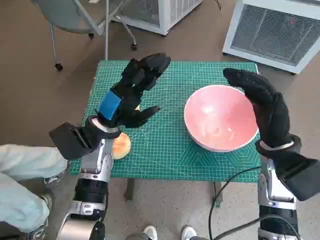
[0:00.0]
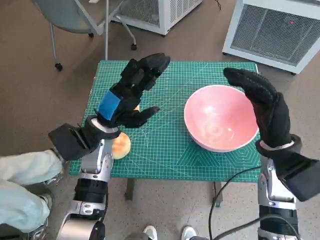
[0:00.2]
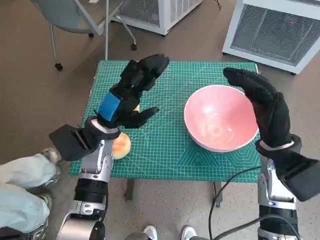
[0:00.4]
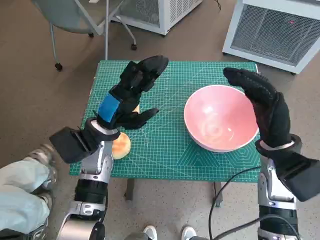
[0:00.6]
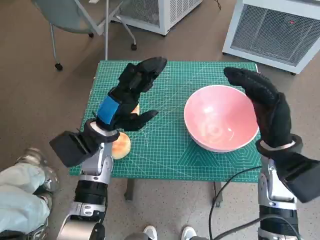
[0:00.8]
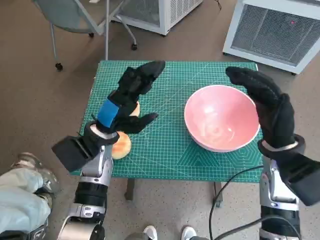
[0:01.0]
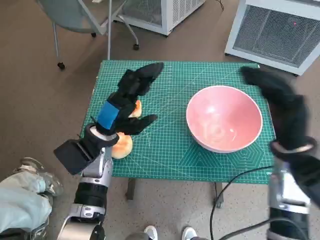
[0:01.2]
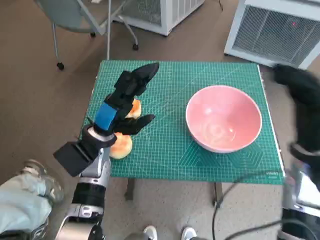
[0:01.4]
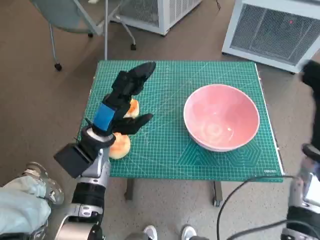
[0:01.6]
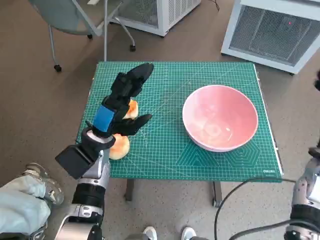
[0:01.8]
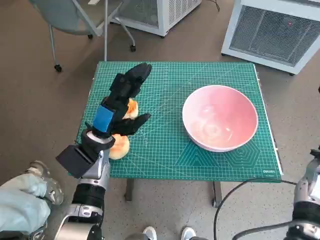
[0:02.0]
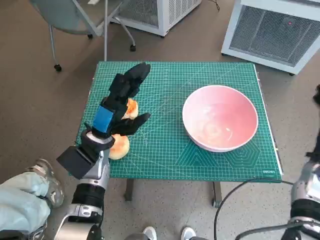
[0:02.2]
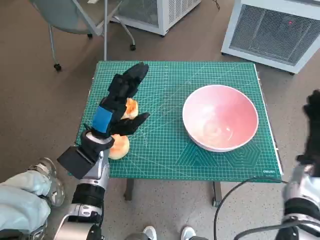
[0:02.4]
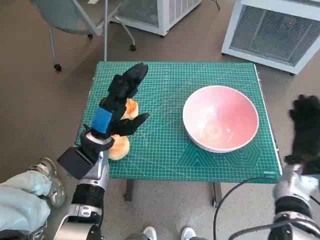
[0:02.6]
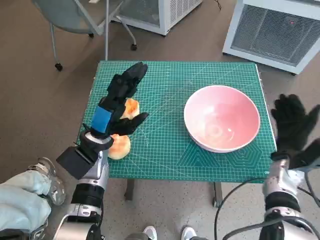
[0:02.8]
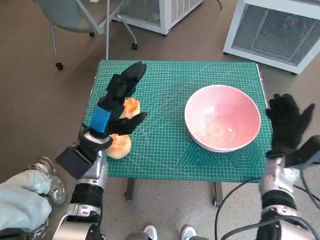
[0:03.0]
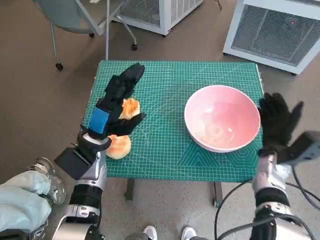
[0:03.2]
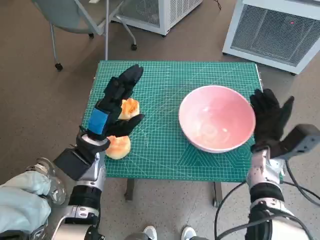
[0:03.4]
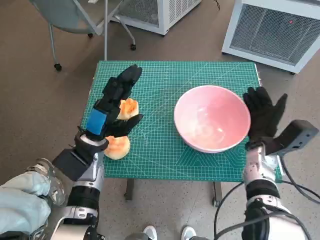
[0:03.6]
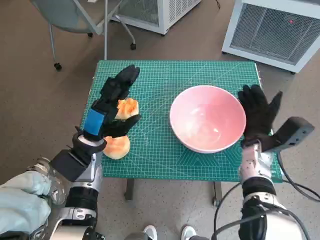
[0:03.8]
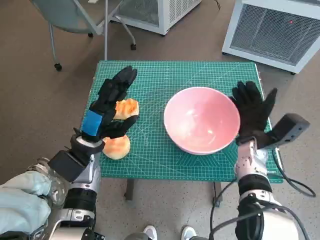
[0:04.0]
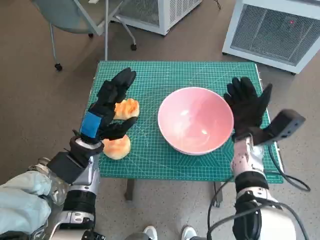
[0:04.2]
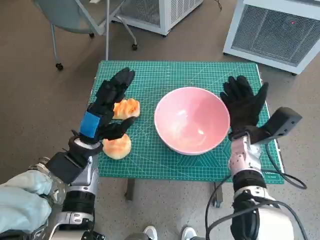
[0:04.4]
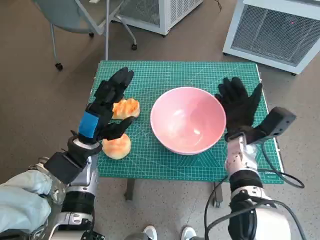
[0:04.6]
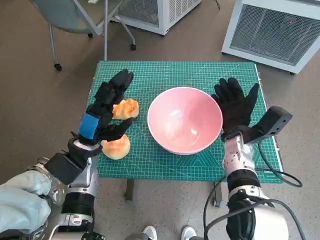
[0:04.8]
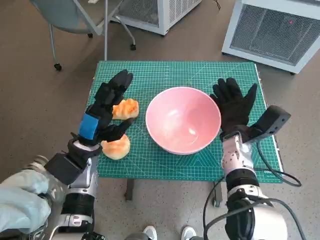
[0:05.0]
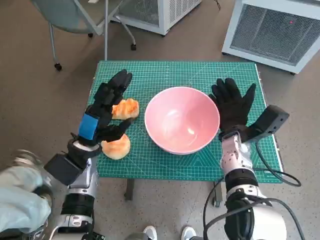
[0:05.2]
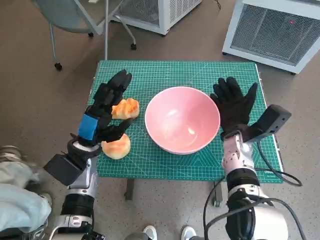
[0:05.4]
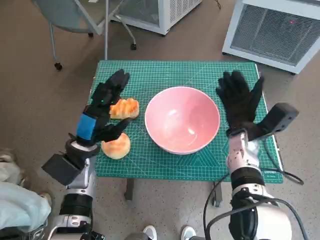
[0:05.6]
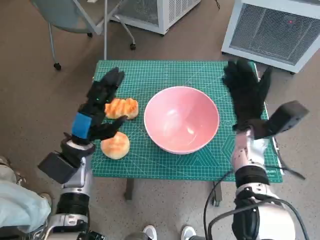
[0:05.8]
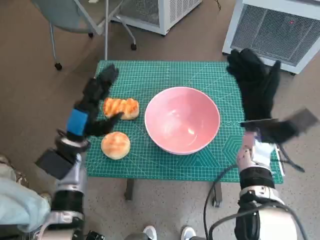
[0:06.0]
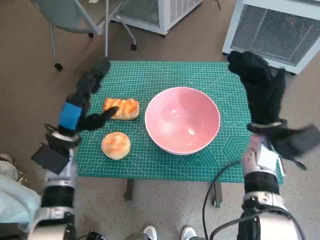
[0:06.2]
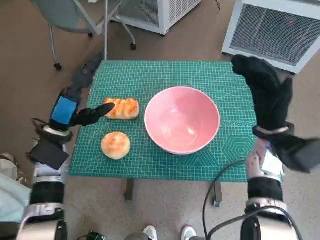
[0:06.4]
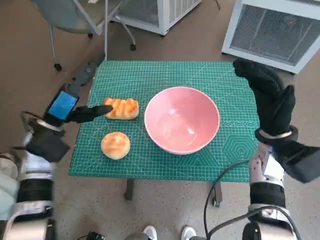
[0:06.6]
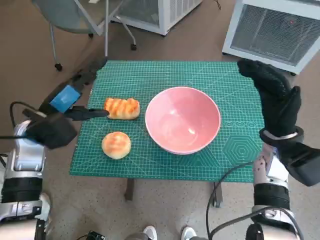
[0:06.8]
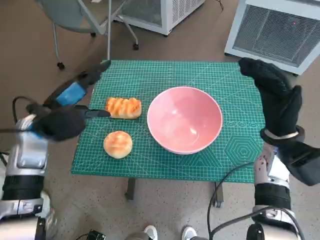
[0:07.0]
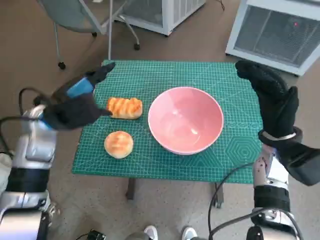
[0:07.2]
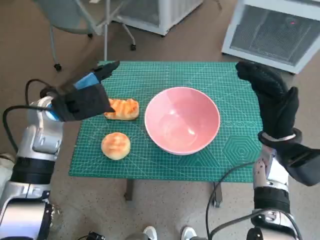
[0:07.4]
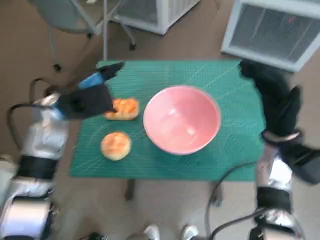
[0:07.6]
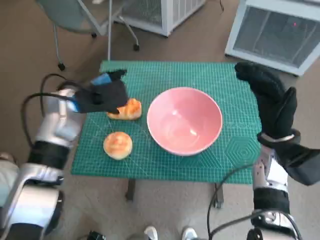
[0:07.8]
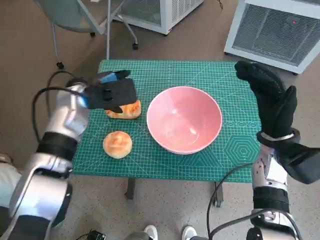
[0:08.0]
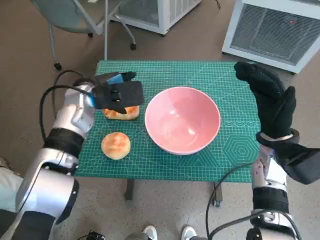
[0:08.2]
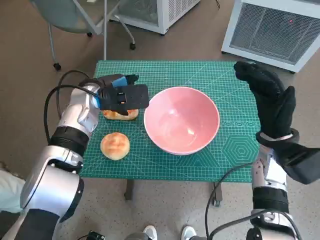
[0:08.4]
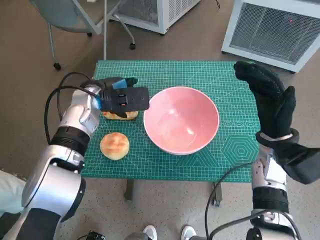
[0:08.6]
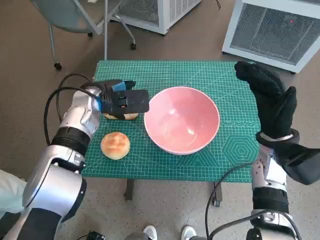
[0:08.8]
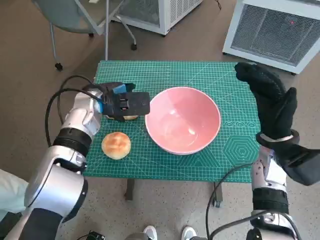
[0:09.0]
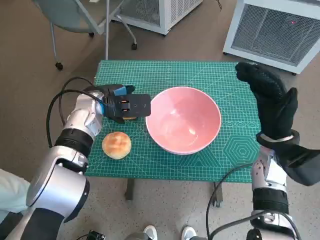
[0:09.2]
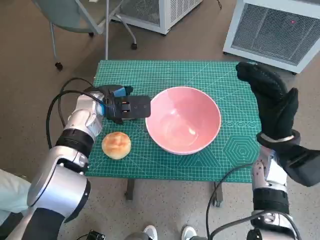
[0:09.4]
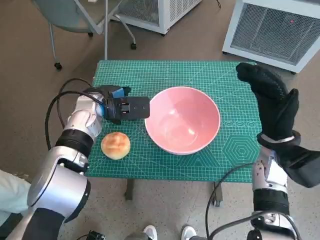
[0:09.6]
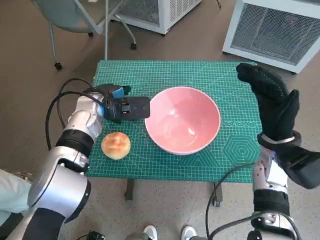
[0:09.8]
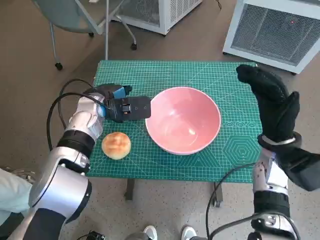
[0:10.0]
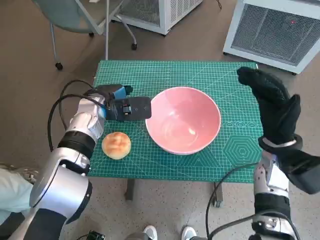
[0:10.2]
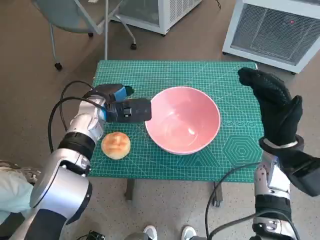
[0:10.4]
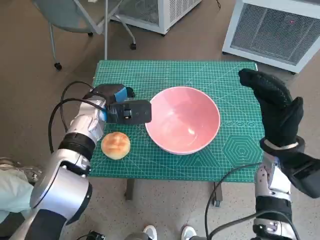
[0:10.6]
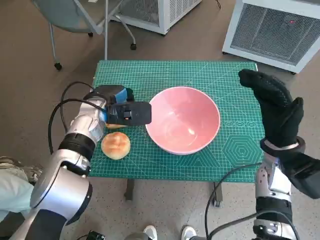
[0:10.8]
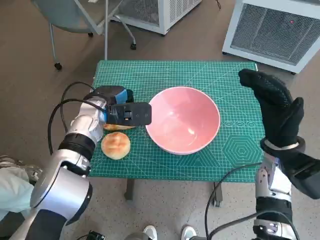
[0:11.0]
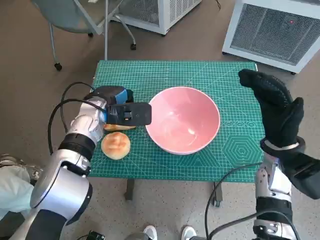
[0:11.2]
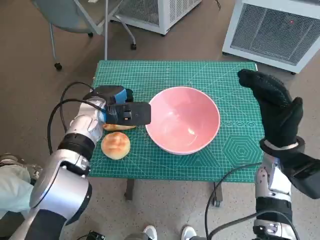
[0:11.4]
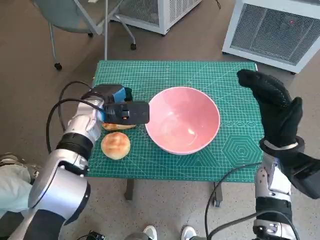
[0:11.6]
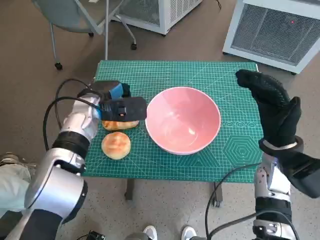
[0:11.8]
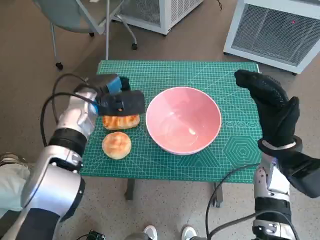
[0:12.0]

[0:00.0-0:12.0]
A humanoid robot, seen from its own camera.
Task of the whole recording: Push the bowl into the center of the table and put the bread into the bowl.
Step, 0:00.0 to 0:05.4: Move the pink bowl to the center of table with right hand.
0:01.6 to 0:03.0: The right hand moves downward, about 10 cm.
0:03.0 to 0:04.4: The right hand moves to the left, roughly 10 cm.
0:06.0 to 0:07.6: The right hand shifts by approximately 5 cm. The left hand moves upward, about 10 cm.
0:07.6 to 0:09.0: The left hand goes about 5 cm to the right.
0:09.0 to 0:12.0: The hands stay close to where they were, moving slightly.

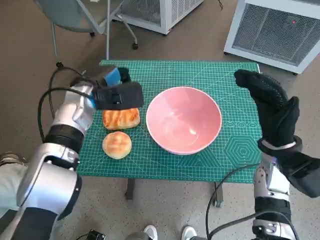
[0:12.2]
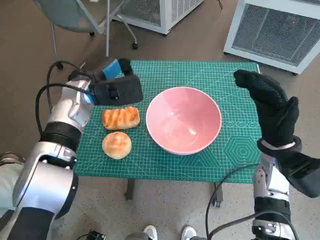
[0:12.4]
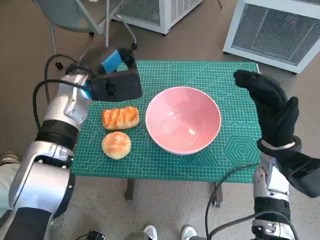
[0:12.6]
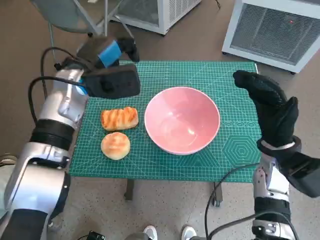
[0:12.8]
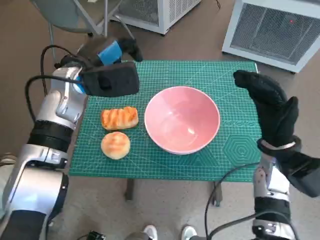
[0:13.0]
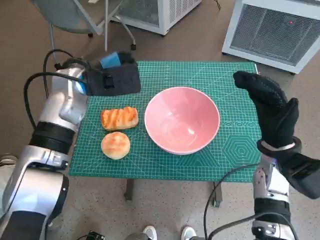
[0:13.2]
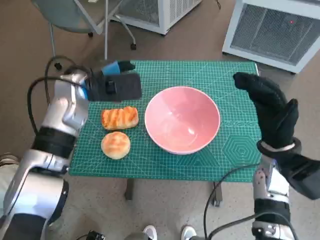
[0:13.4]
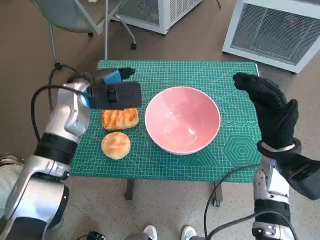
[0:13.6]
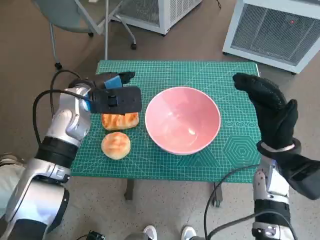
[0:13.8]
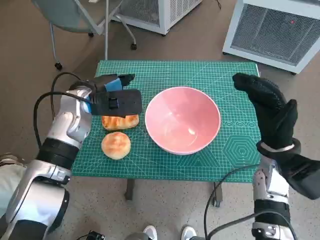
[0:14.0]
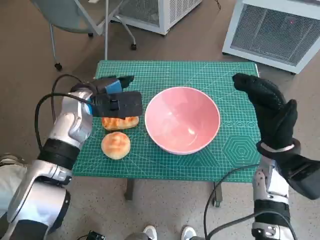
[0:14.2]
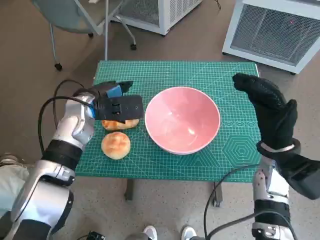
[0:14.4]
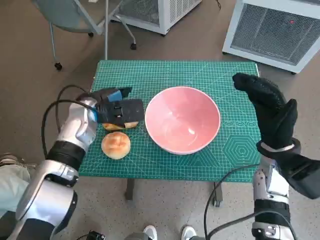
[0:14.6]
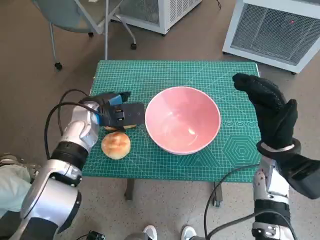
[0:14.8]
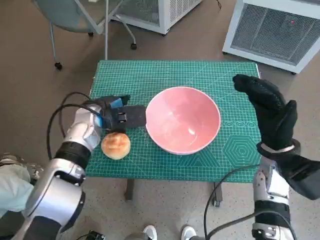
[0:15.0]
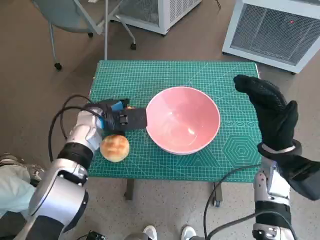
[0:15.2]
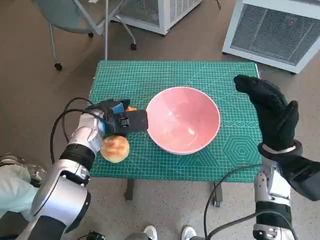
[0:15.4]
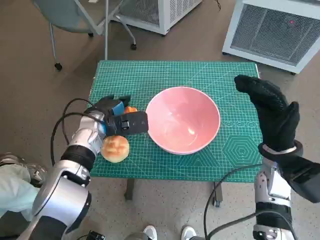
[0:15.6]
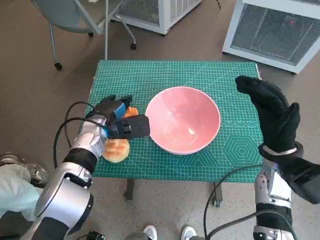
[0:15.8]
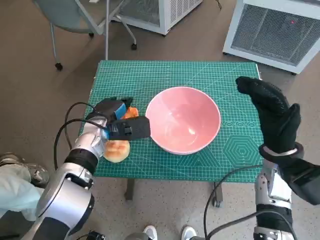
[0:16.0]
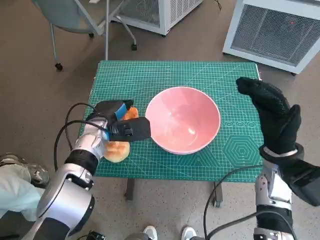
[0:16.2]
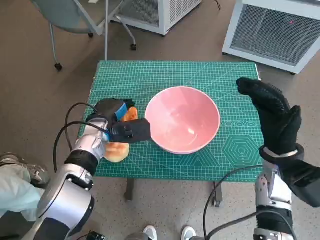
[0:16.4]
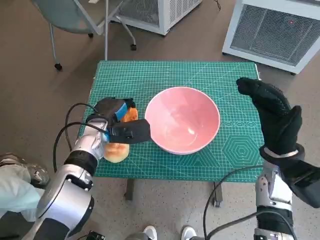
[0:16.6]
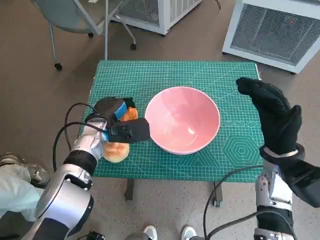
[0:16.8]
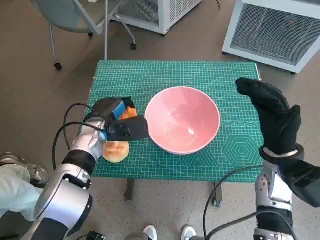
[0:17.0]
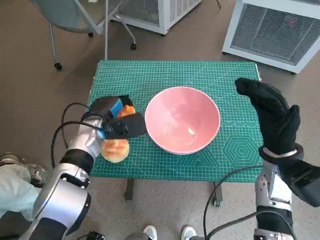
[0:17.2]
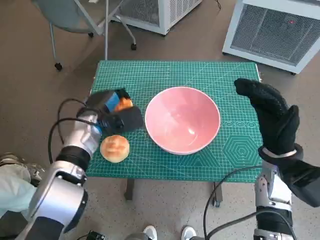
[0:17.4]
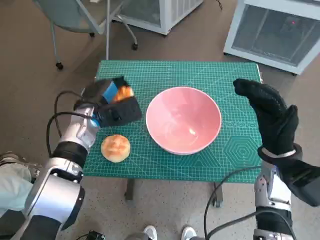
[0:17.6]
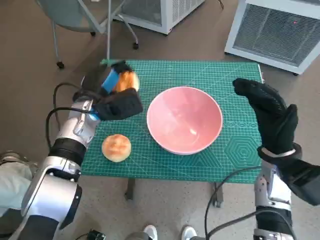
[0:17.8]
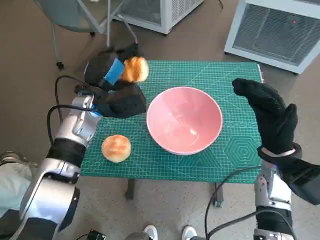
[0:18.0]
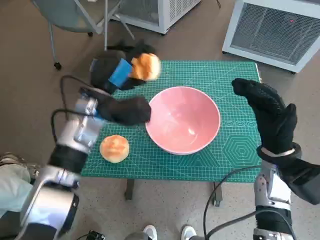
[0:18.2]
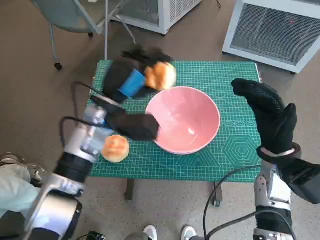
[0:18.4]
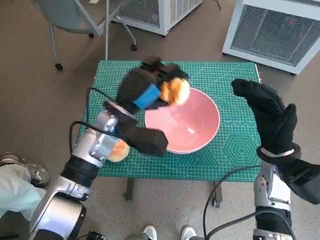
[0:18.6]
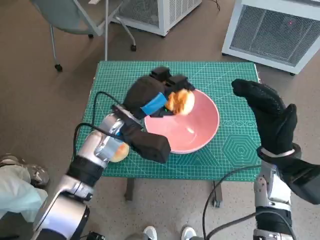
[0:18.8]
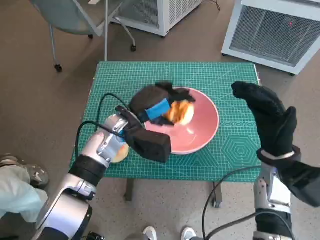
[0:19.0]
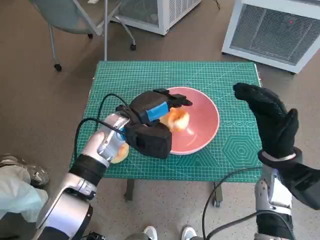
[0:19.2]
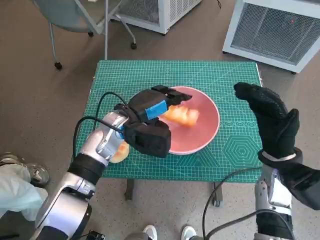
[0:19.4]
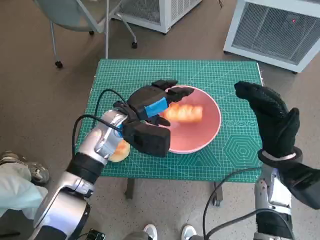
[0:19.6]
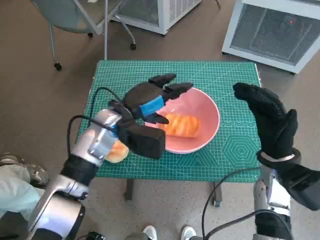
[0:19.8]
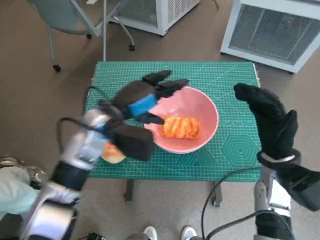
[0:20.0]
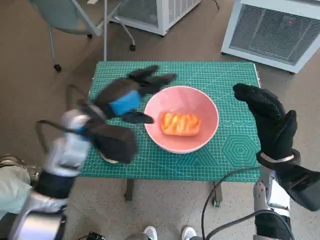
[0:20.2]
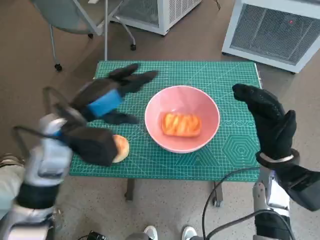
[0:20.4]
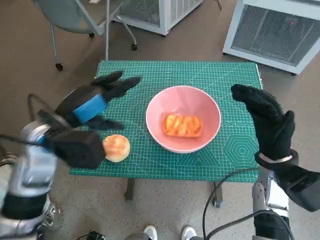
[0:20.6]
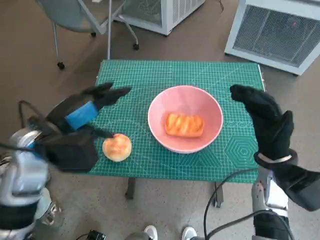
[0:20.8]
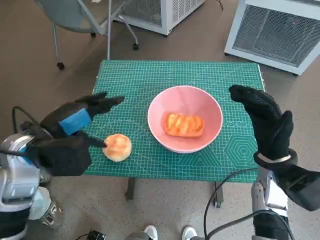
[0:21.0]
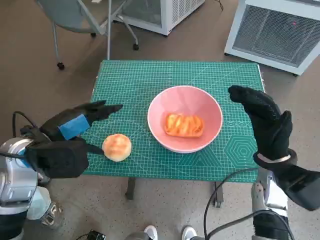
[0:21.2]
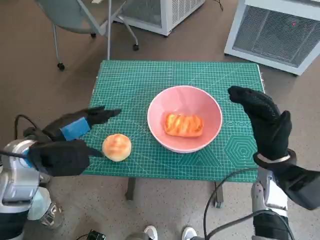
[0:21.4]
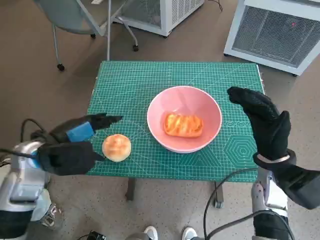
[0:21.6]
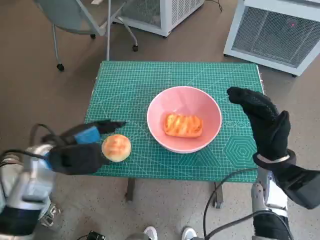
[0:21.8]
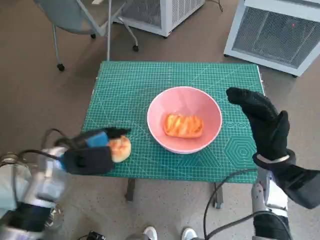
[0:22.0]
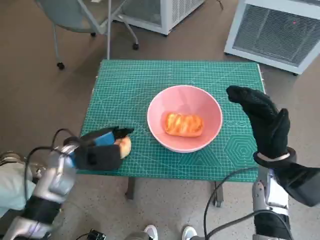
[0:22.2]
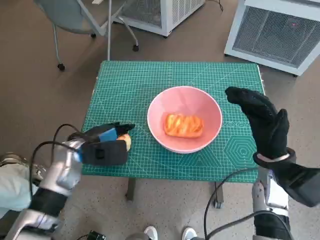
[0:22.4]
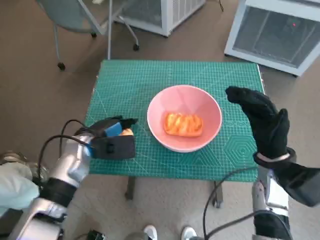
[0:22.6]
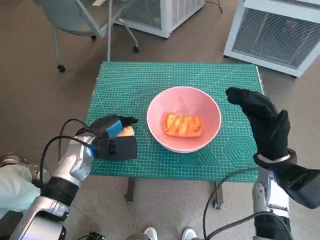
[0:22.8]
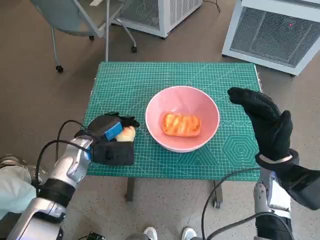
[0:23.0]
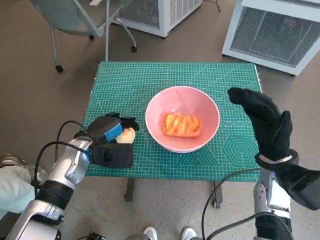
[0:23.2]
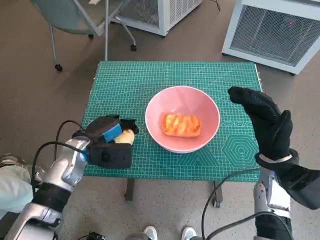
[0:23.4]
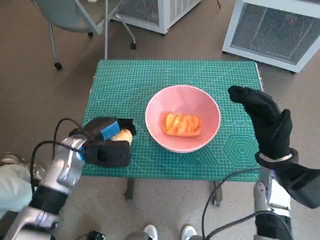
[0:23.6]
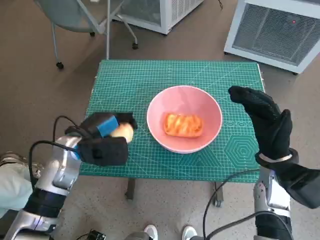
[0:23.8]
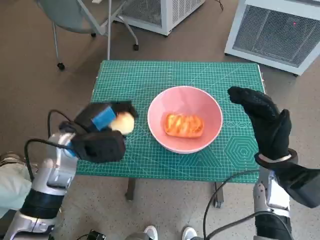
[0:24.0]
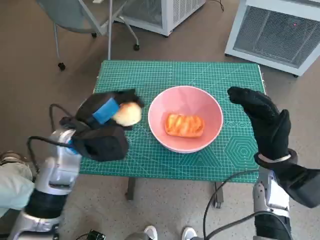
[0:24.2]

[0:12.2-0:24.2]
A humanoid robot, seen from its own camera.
Task of the whole recording: Push the bowl into the center of the table and put the bread into the bowl.
Step, 0:12.2 to 0:16.6: Grasp the long bread with left hand.
Step, 0:16.8 to 0:19.4: Place the long bread in pink bowl with left hand.
Step, 0:19.6 to 0:22.8: Grasp the round bread with left hand.
0:13.8 to 0:15.2: The left hand goes some 5 cm downward.
0:15.2 to 0:16.6: There are only small adjustments of the hands.
0:16.6 to 0:18.2: The left hand travels upward by roughly 10 cm.
0:19.8 to 0:21.2: The left hand is displaced to the left and backward by roughly 15 cm.
0:21.2 to 0:22.6: The left hand shifts approximately 10 cm downward and forward.
0:22.6 to 0:24.2: The left hand is displaced upward by some 5 cm.
